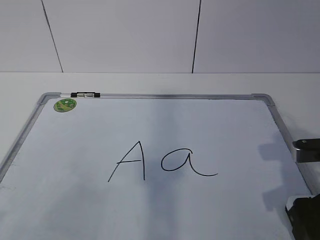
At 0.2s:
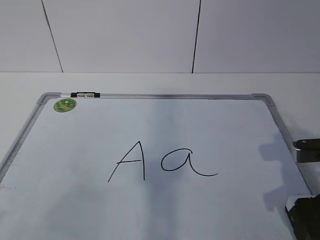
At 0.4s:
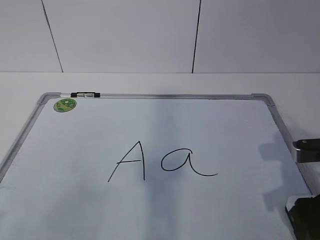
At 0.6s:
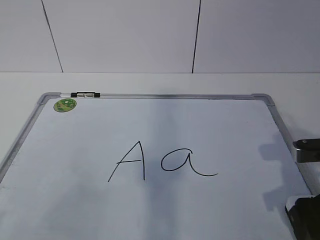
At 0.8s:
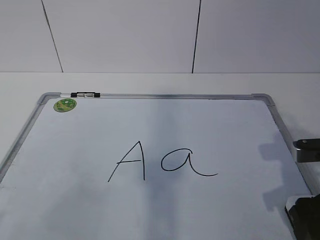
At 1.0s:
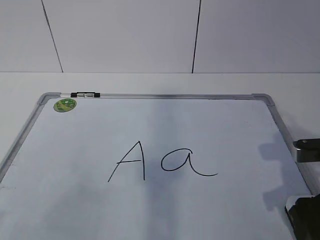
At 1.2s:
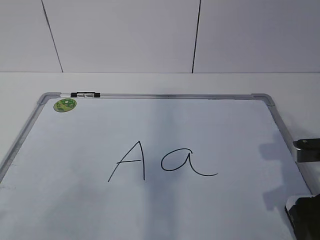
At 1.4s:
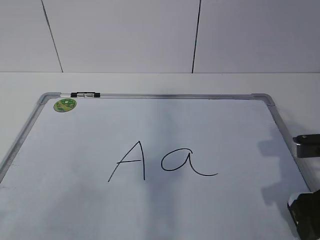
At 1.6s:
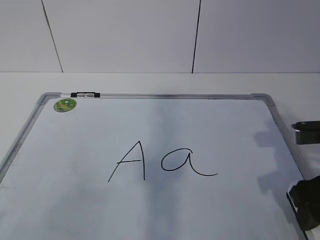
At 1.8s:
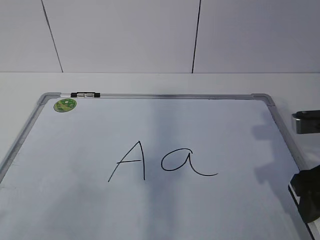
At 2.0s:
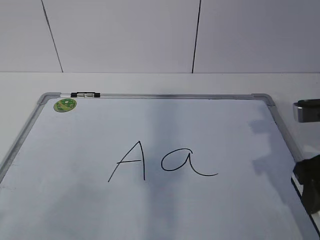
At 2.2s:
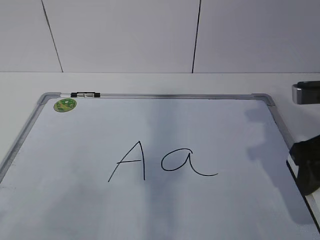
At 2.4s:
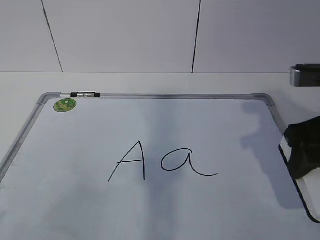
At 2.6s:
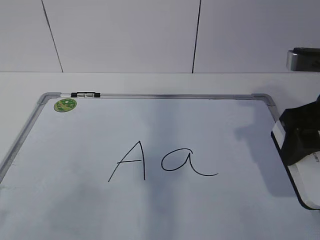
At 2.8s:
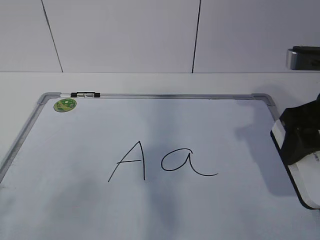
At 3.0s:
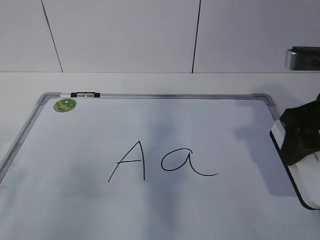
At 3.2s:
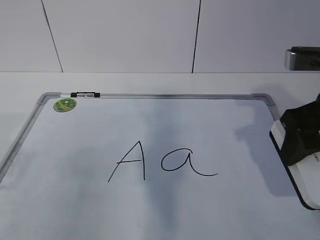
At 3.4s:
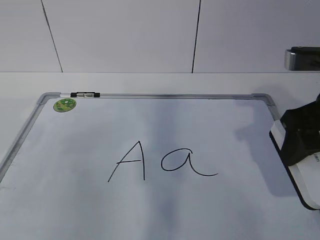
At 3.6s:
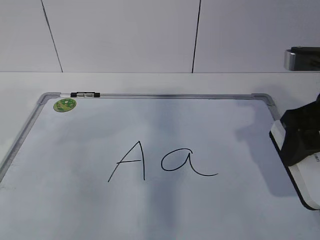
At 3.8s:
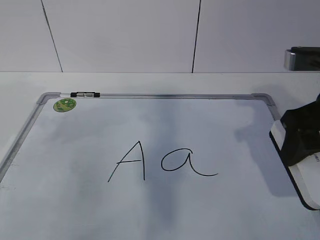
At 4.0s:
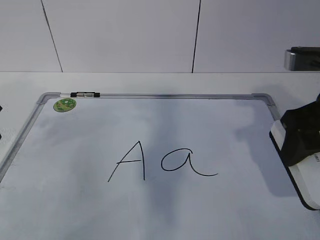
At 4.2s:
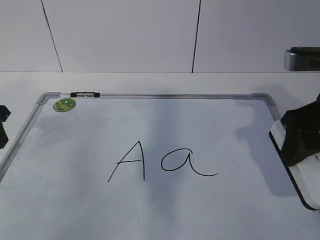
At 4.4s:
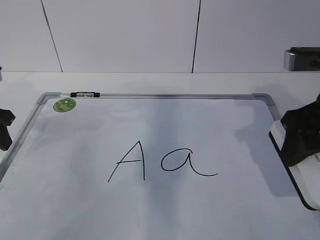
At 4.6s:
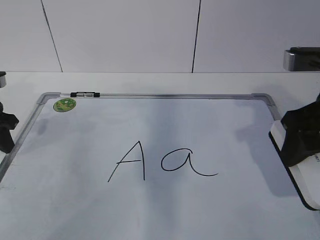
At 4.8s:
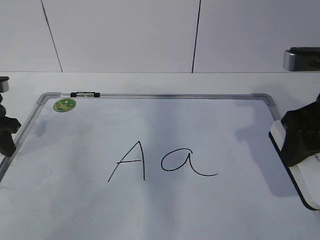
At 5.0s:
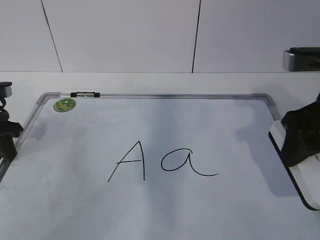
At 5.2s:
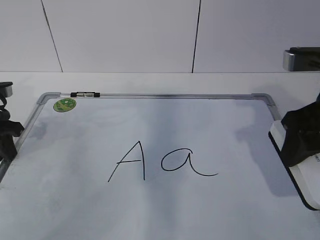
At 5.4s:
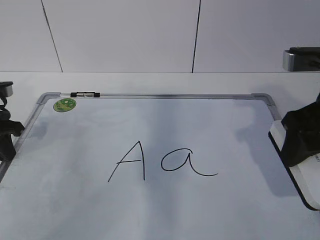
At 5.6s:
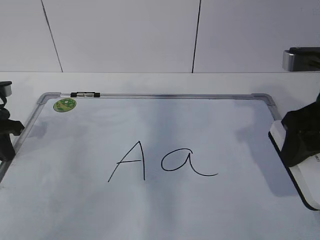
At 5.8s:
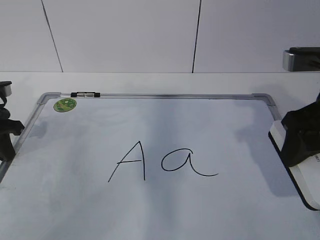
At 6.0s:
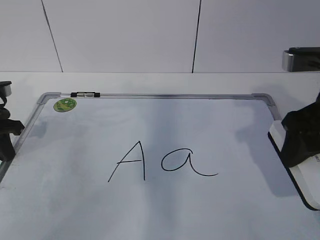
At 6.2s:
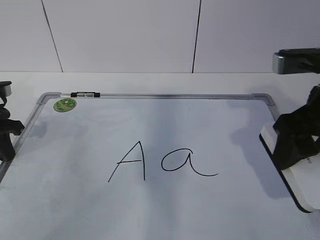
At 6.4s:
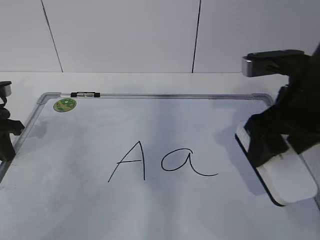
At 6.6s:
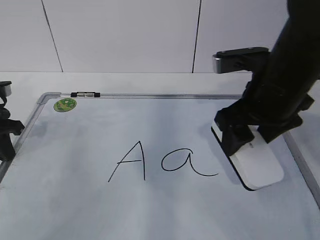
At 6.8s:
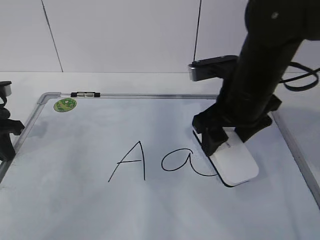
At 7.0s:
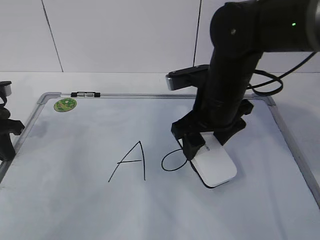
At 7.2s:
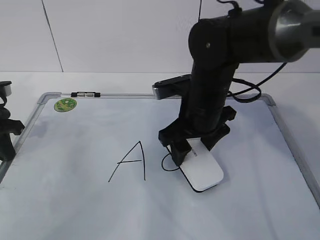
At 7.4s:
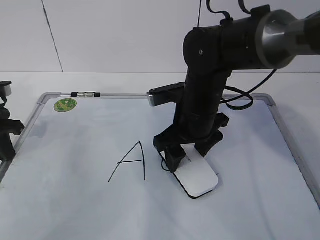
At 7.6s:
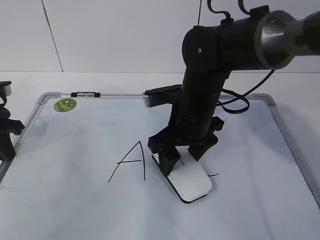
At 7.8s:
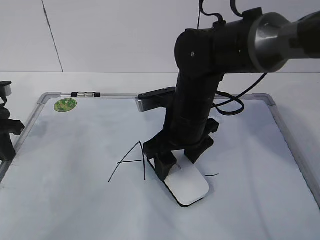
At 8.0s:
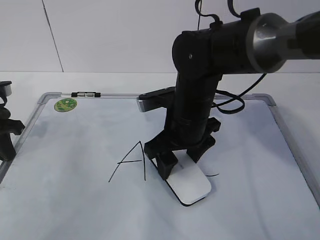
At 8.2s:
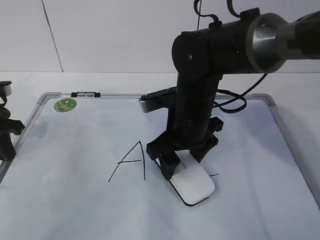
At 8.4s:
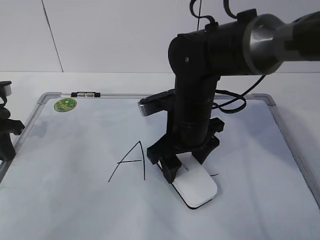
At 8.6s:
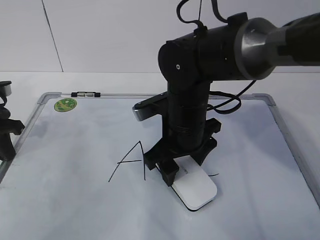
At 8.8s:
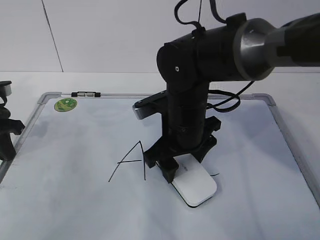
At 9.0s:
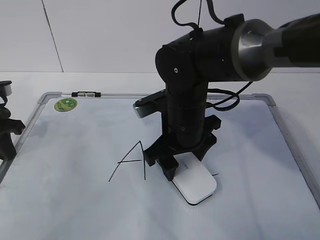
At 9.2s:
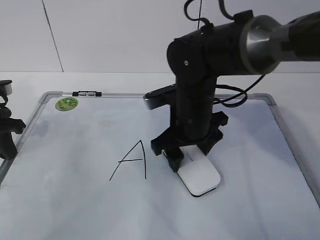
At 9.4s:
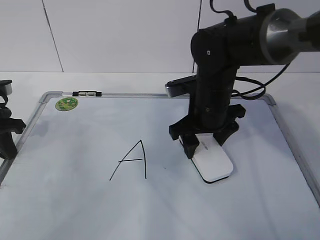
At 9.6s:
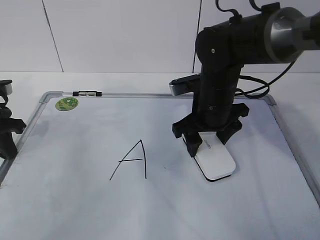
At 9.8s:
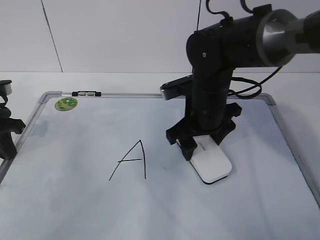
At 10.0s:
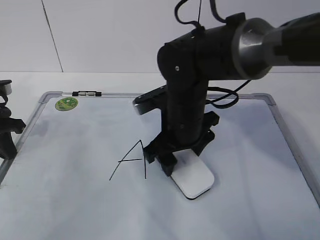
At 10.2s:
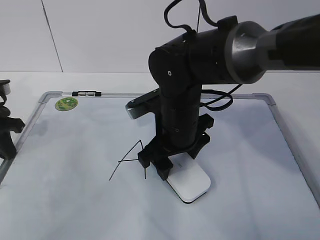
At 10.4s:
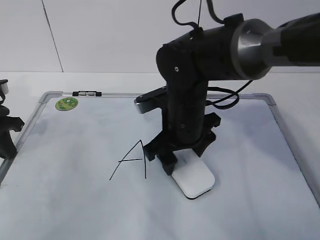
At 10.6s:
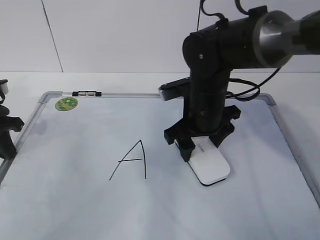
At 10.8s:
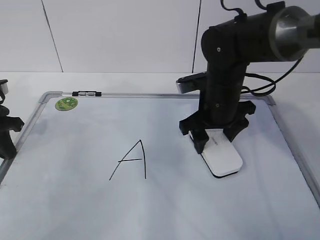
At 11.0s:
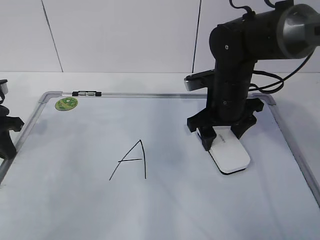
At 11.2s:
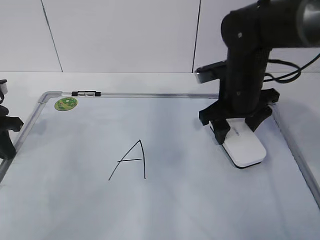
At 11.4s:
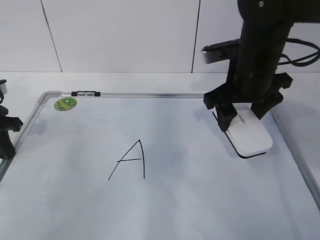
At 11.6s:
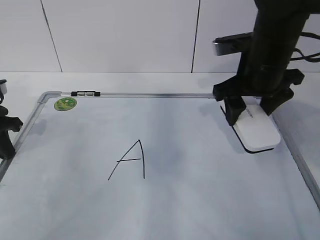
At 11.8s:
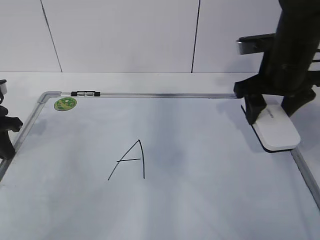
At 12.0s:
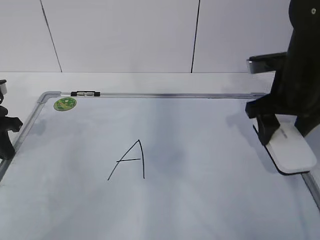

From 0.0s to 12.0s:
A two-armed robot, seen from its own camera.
Task of the whole recording: pick up the eraser on the blackboard and erase the letter "a".
Step, from 2.6s to 7.0s: Erase the letter a with your right hand.
Step, from 7.2s to 9.6s: Put down the eraser with your right hand.
From 0.0s to 1.6s: The right gripper closes up.
From 1.6s to 3.0s: The right gripper moves upward, some 10 cm.
From 3.0s to 4.4s: The left gripper is displaced forward by about 25 cm.
From 4.4s to 6.0s: The left gripper closes.
From 6.0s to 7.6s: The right gripper shifts roughly 20 cm to the left, downward and forward.
From 7.6s to 9.0s: The grippers move only a little.
From 10.4s to 12.0s: The right gripper goes roughly 15 cm to the right.

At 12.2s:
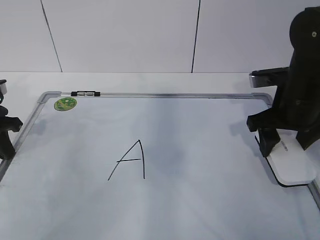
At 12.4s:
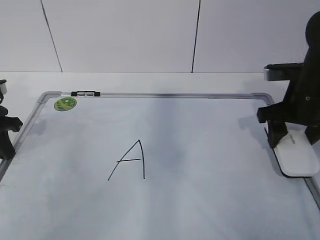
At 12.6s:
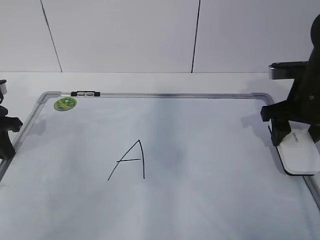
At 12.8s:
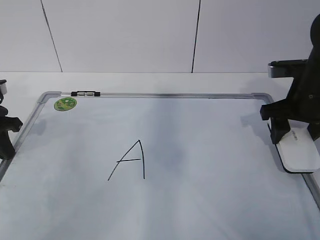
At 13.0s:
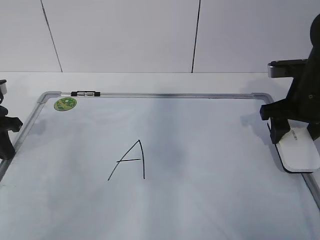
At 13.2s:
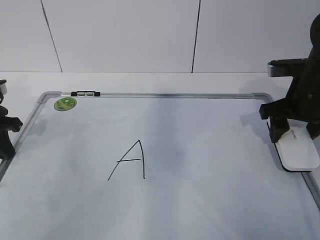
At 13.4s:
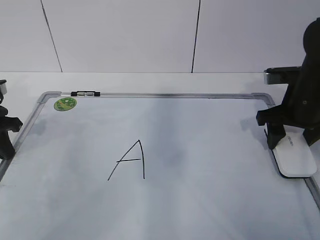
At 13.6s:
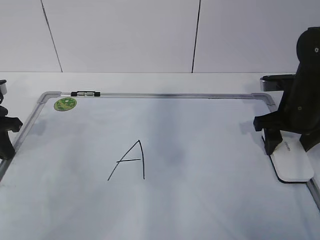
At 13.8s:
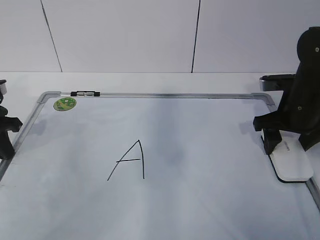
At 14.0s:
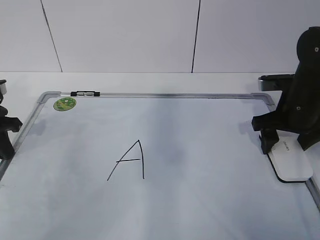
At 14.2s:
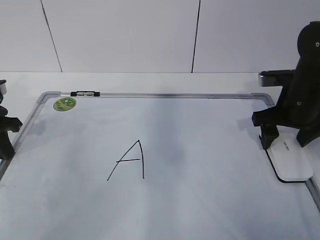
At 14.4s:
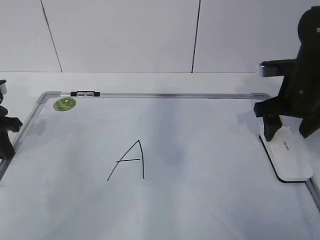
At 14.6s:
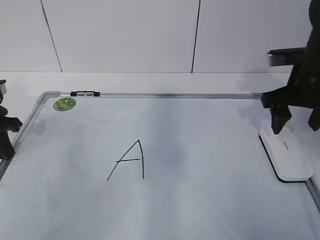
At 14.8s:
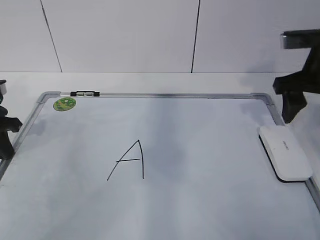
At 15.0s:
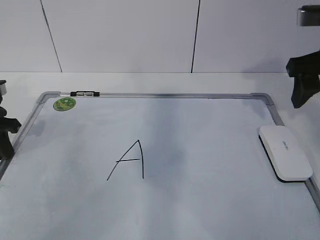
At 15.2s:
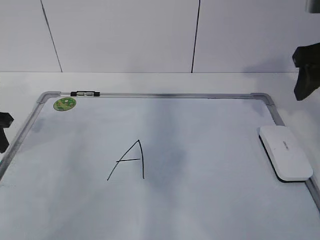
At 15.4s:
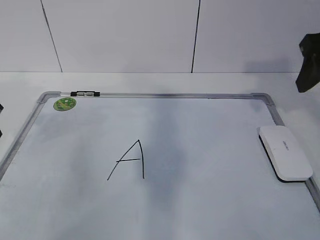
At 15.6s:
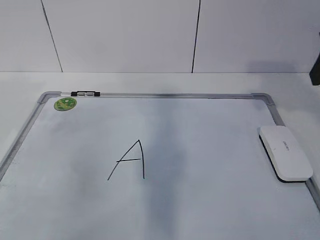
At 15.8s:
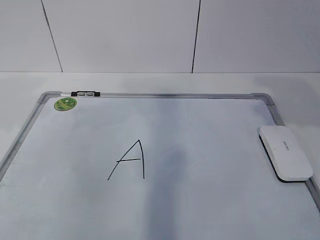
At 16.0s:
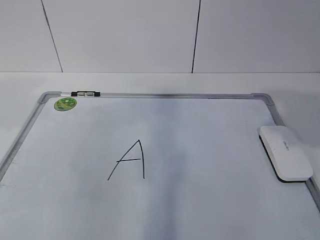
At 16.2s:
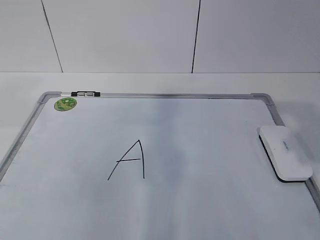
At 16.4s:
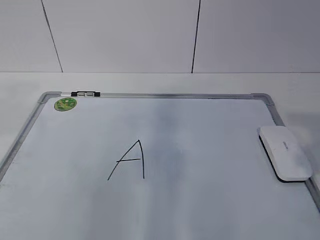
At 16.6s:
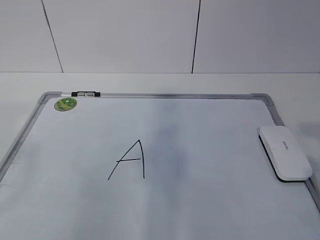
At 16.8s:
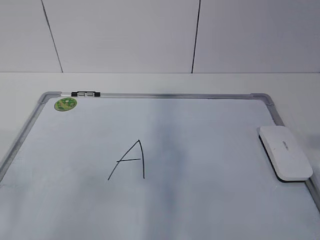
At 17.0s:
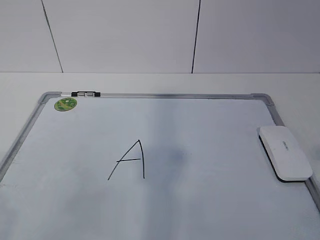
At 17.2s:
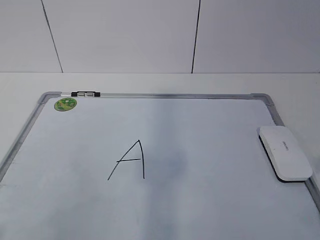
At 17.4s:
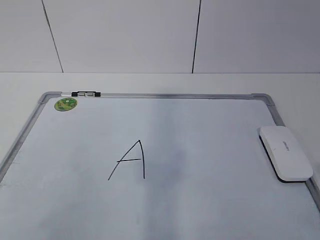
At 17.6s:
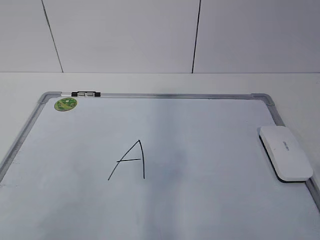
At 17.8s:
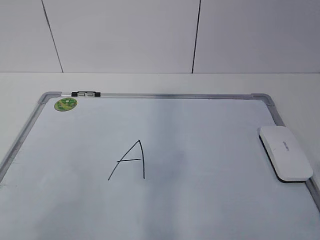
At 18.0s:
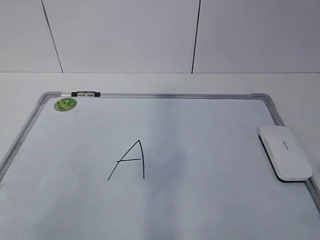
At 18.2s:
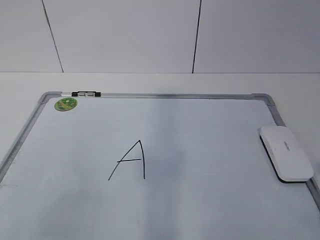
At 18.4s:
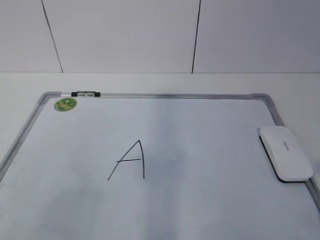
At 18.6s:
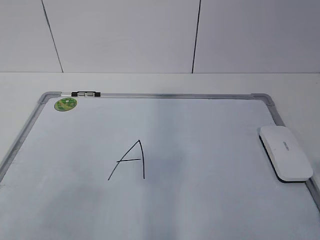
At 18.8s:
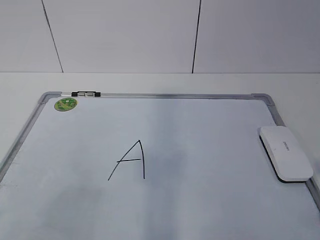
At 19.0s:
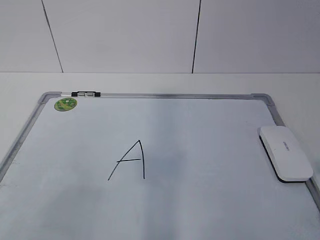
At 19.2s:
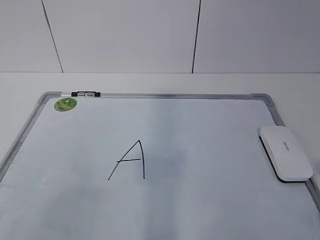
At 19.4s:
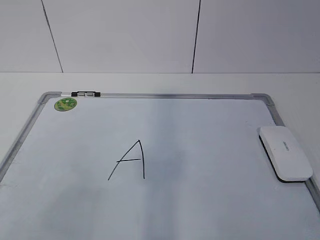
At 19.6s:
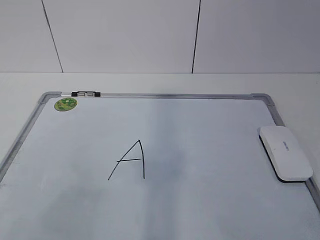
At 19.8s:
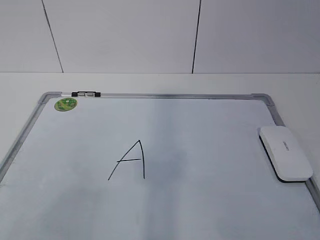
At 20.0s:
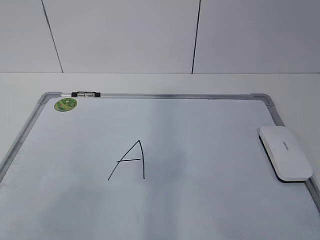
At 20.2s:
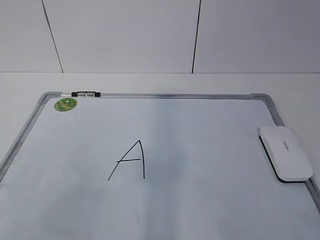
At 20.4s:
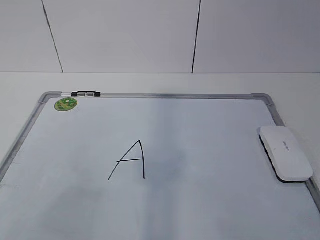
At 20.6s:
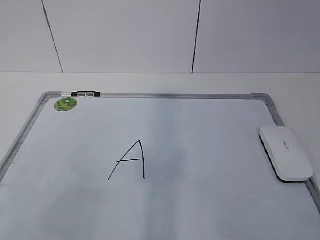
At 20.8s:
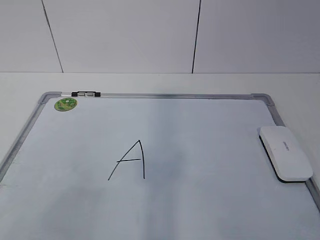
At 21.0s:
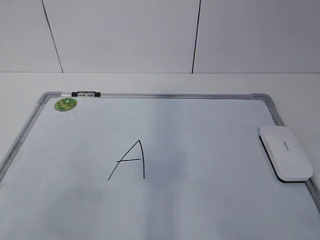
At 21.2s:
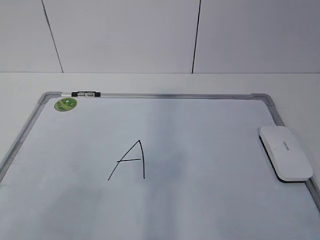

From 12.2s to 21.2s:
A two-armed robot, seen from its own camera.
Task of the whole recording: pick up the eraser on the blackboard and erase the letter "a".
From 12.2s to 13.8s: There are only small adjustments of the grippers.
From 13.8s to 15.2s: The right gripper shifts roughly 15 cm upward; the left gripper opens.
From 15.2s to 16.6s: The right gripper moves backward, some 25 cm; the left gripper moves backward and upward, approximately 35 cm.
From 19.8s to 21.2s: Both grippers stay about where they are.
